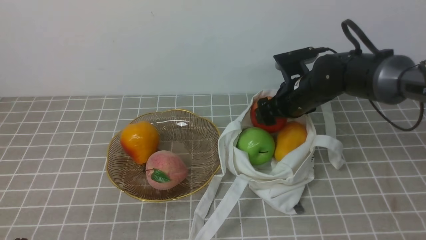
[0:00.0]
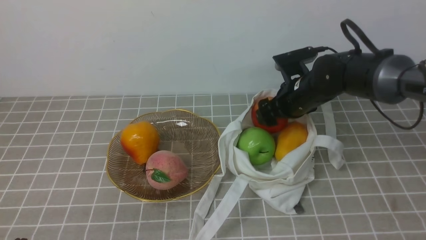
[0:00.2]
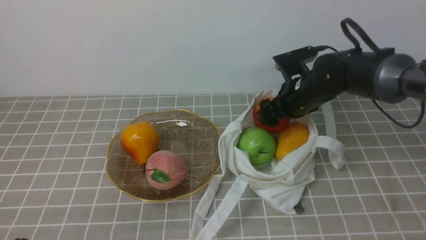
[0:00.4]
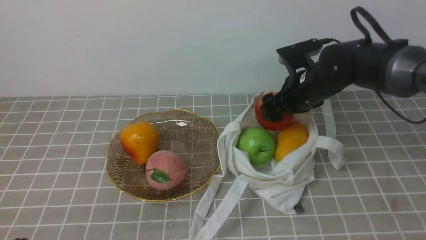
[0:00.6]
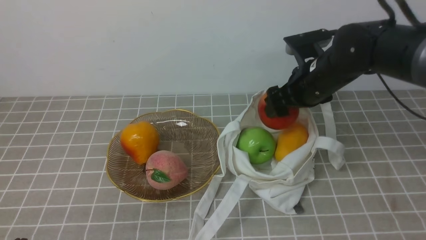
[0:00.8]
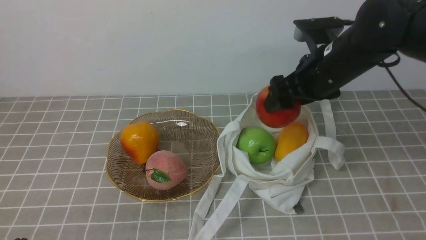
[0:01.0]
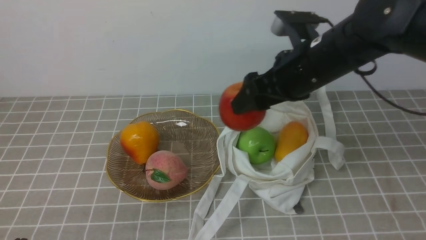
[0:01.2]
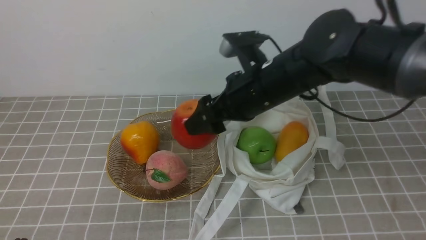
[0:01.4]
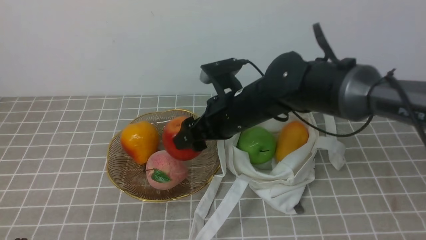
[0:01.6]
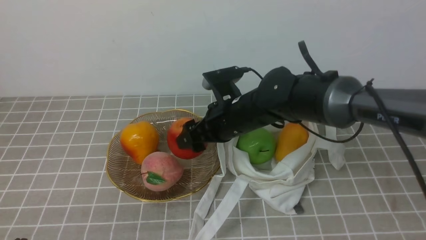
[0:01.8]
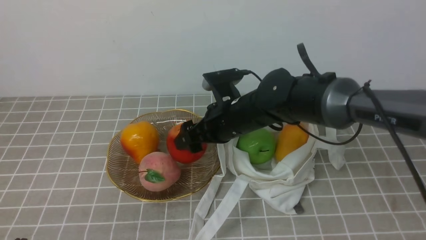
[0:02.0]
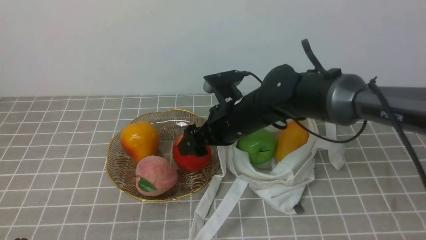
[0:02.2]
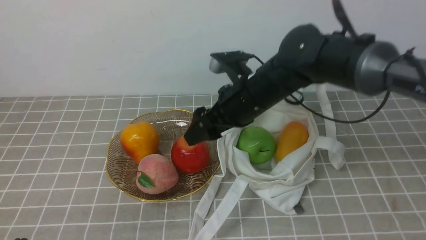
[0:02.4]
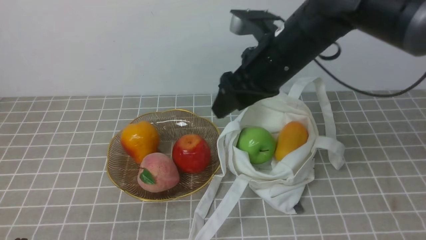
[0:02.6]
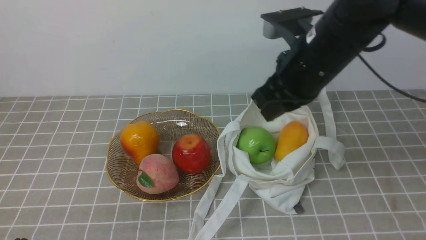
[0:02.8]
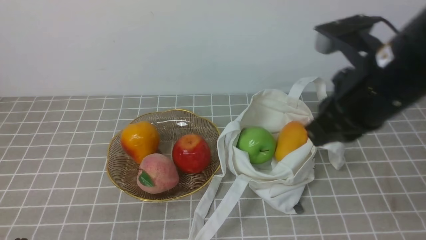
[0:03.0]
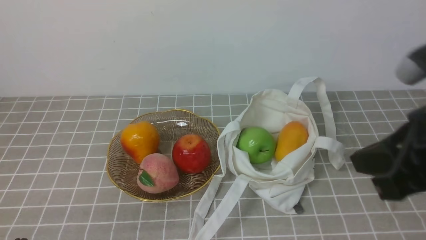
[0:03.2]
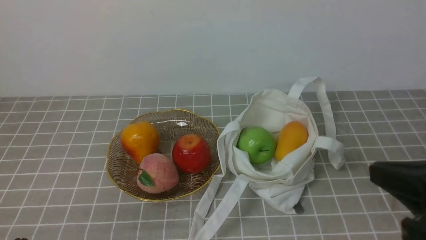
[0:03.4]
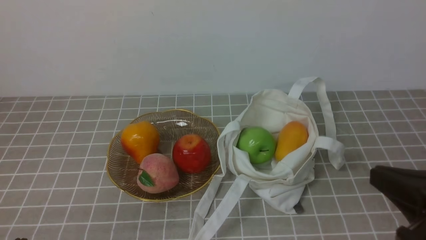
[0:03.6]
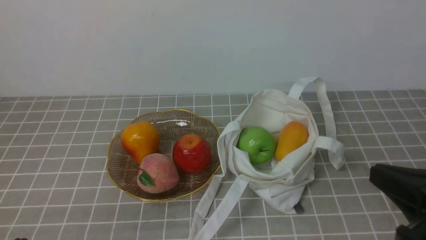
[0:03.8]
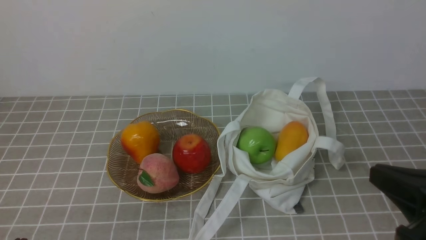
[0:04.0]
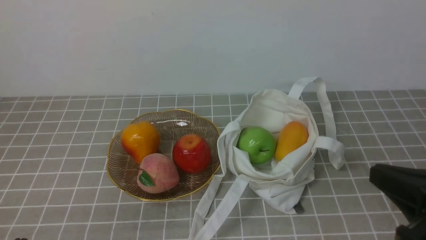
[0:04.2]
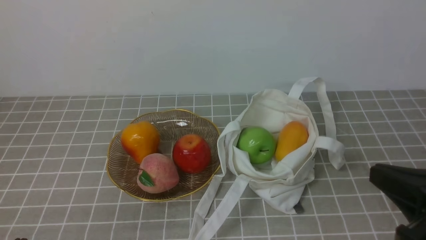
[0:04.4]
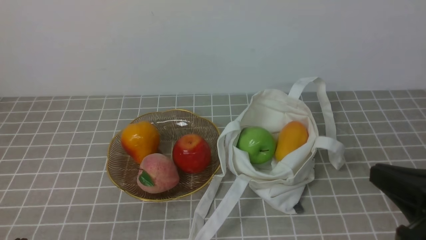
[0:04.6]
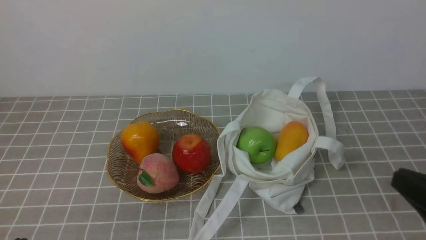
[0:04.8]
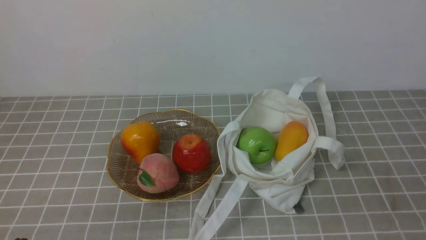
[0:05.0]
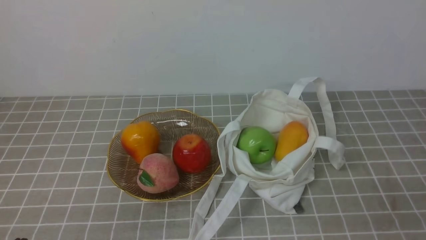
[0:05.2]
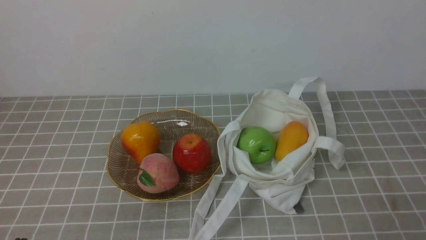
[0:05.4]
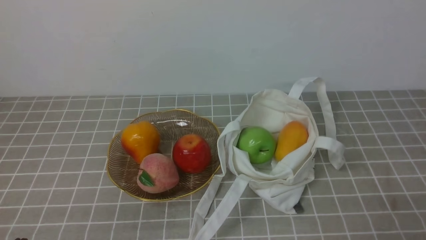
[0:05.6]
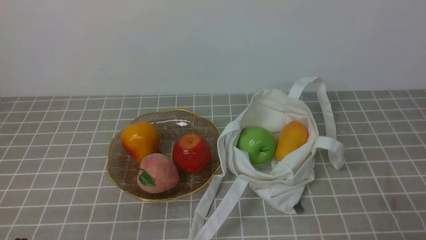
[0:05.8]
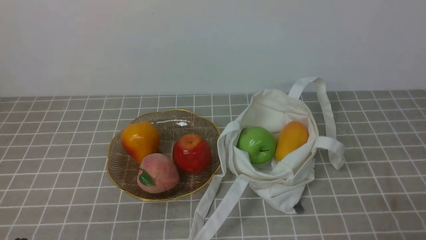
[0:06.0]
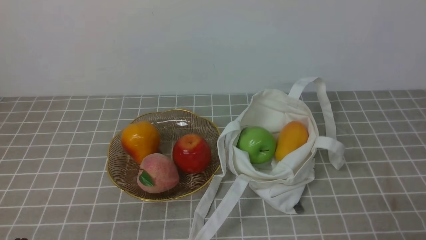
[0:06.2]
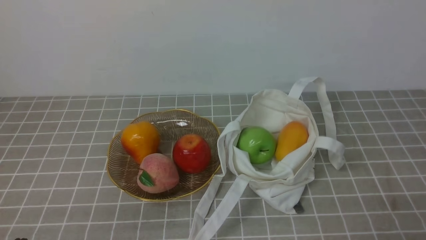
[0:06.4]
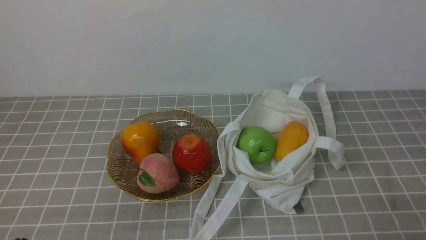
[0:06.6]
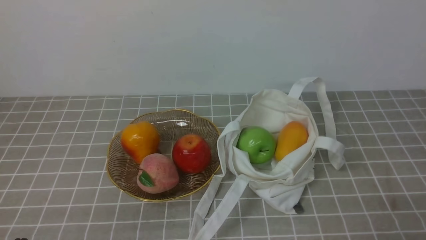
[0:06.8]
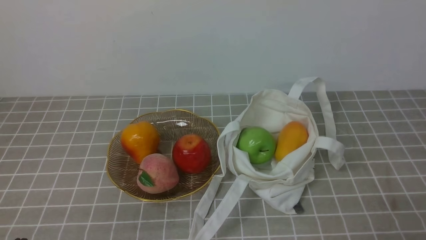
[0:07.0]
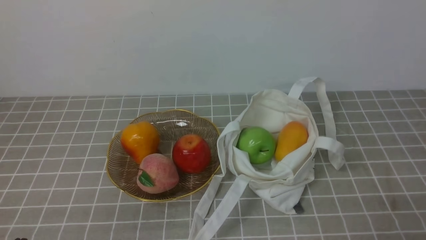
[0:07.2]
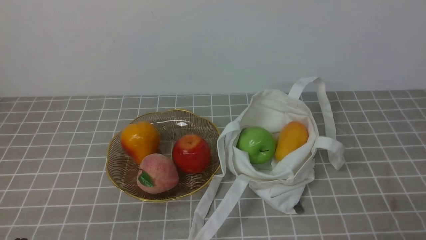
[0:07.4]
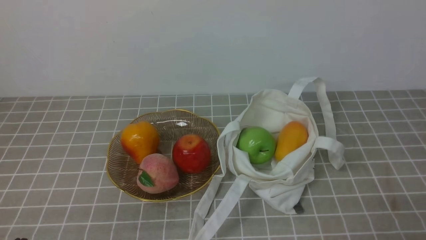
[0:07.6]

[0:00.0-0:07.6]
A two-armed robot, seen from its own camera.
Step, 0:00.0 to 0:02.2: use the right arm to put the apple into the empty plate on the left.
0:00.0 to 0:01.6: The right gripper moves to the left, backward and upward, roughly 15 cm.
0:01.6 to 0:03.0: The right gripper heads to the right, upward and backward, covering about 15 cm, and closes.
0:03.0 to 0:04.6: The right gripper is displaced backward, to the right and downward by about 20 cm.
0:04.6 to 0:06.0: The right gripper is displaced downward, to the right and backward by approximately 15 cm.
0:06.0 to 0:07.6: Both grippers stay about where they are.

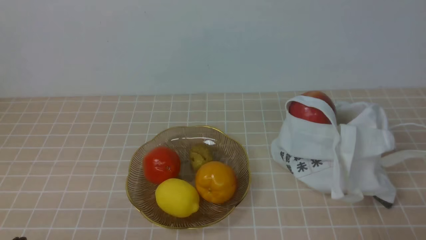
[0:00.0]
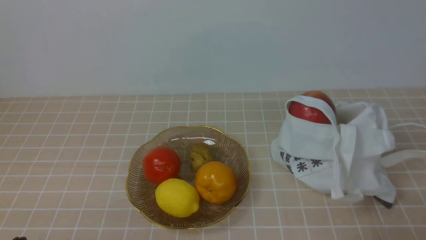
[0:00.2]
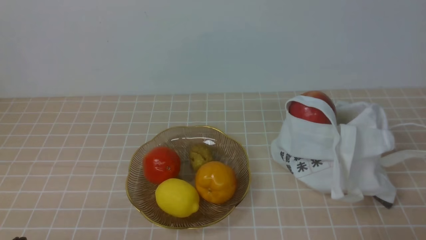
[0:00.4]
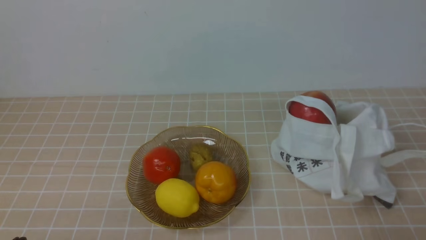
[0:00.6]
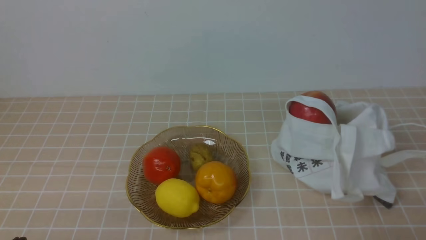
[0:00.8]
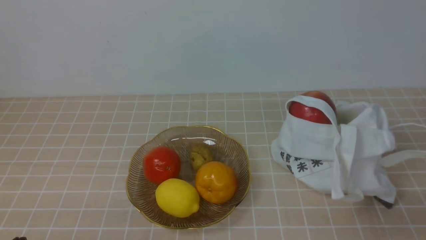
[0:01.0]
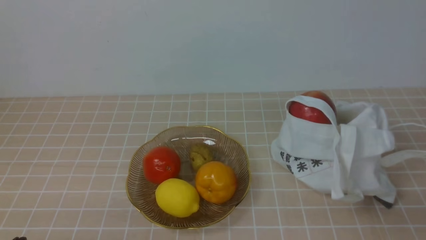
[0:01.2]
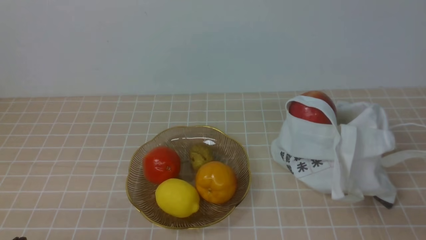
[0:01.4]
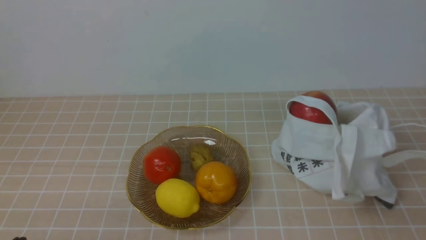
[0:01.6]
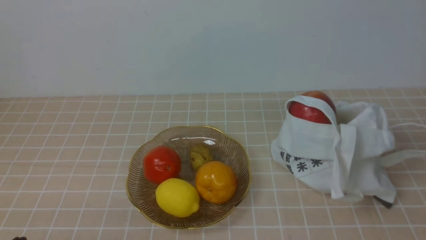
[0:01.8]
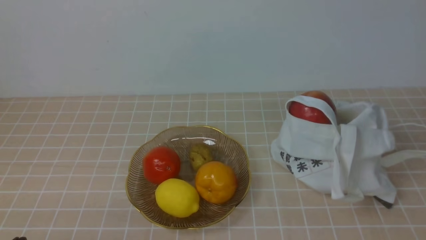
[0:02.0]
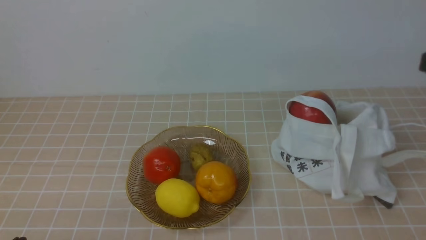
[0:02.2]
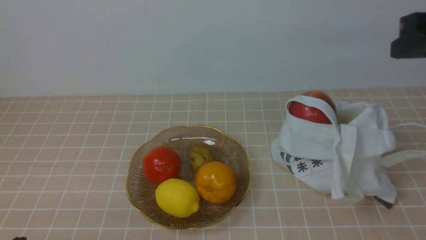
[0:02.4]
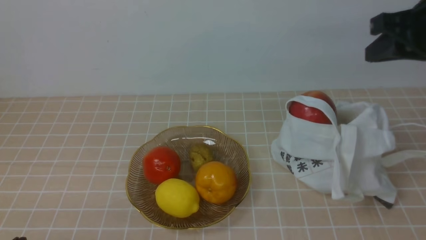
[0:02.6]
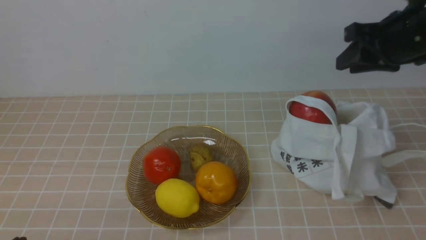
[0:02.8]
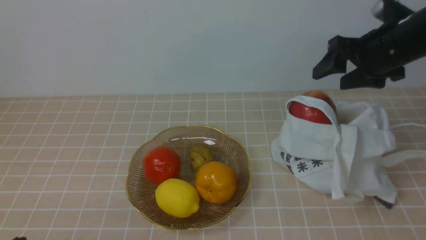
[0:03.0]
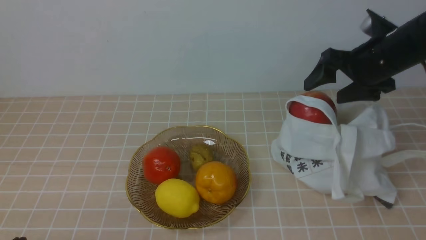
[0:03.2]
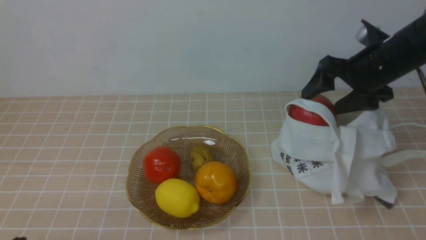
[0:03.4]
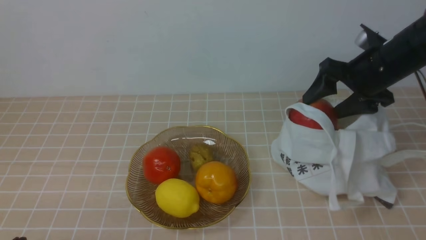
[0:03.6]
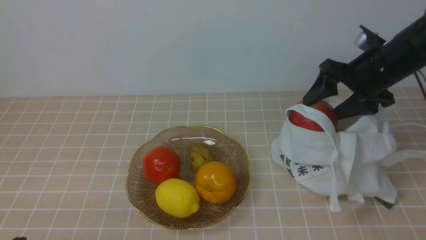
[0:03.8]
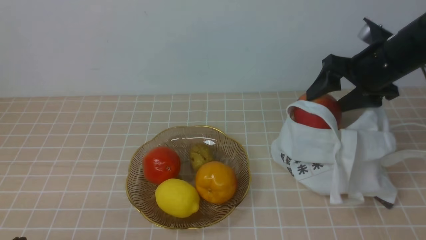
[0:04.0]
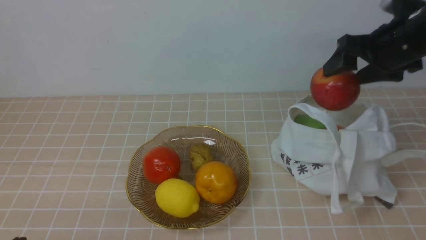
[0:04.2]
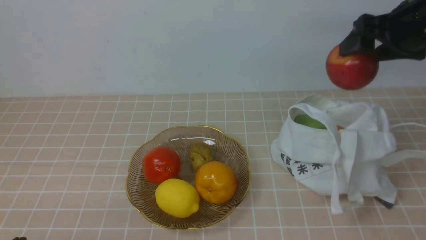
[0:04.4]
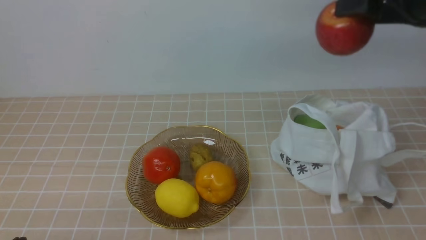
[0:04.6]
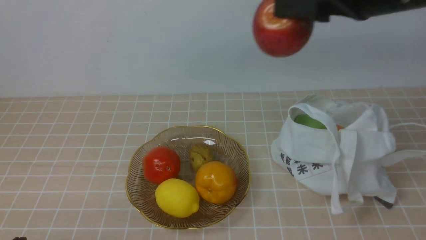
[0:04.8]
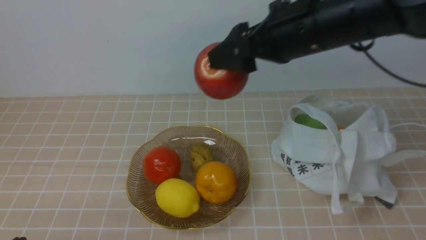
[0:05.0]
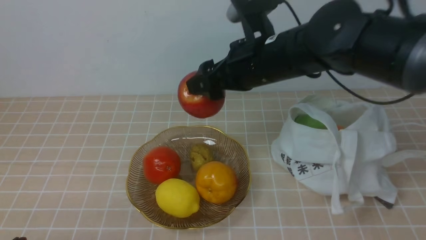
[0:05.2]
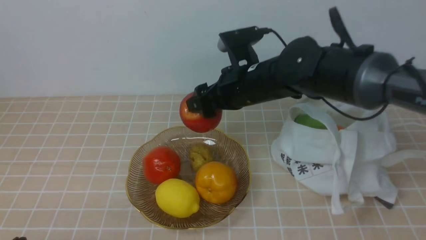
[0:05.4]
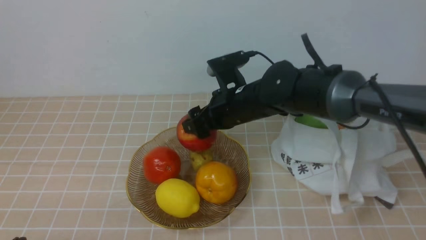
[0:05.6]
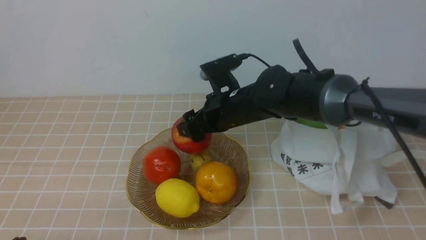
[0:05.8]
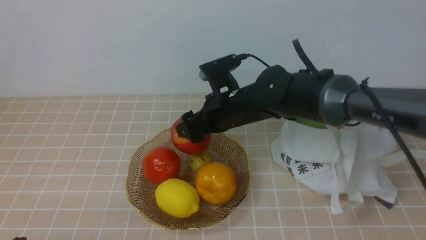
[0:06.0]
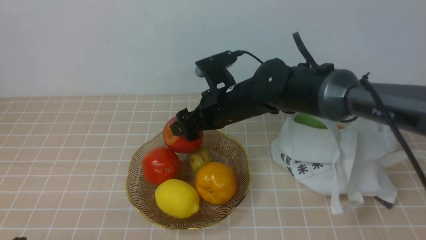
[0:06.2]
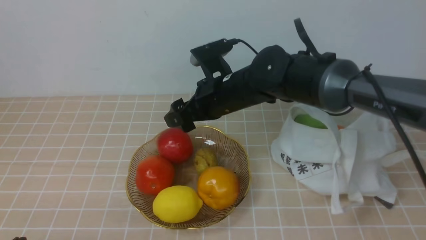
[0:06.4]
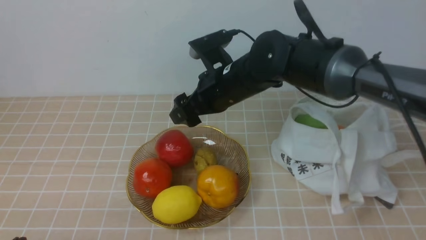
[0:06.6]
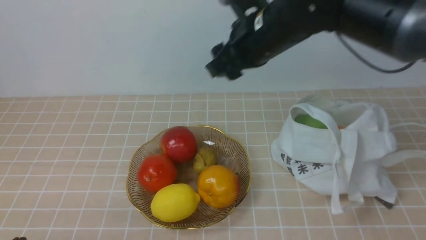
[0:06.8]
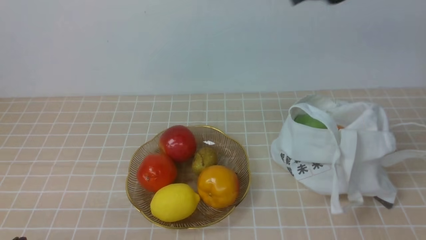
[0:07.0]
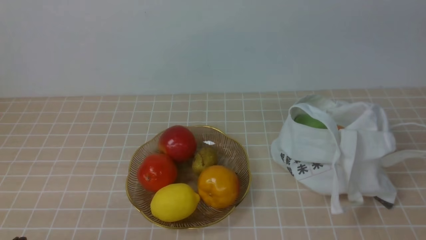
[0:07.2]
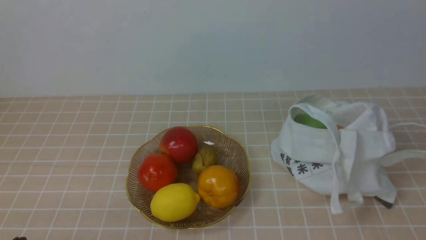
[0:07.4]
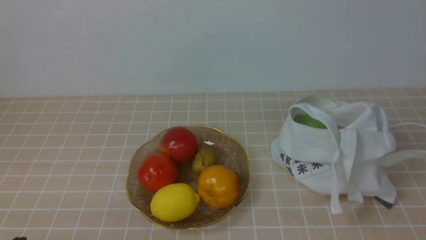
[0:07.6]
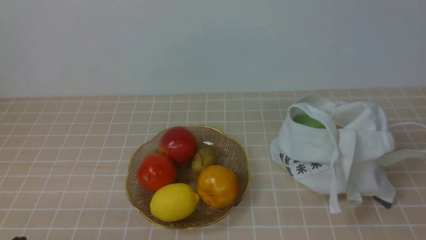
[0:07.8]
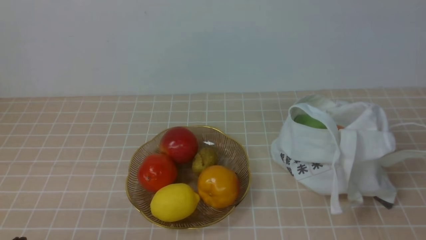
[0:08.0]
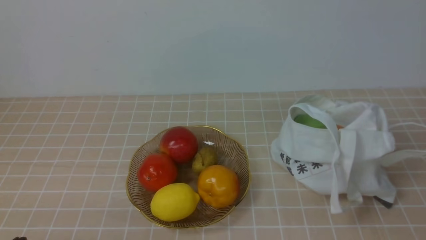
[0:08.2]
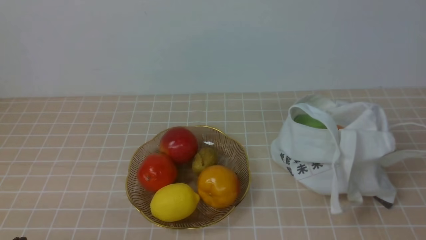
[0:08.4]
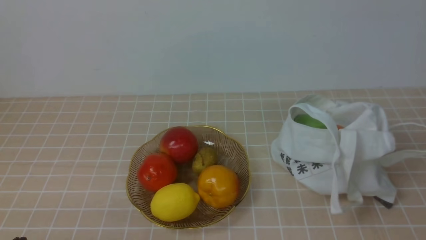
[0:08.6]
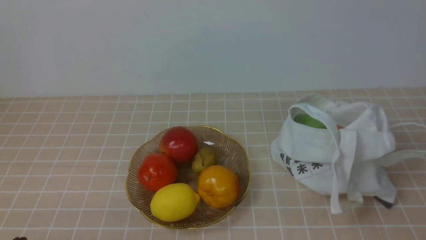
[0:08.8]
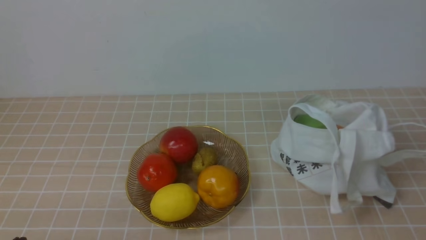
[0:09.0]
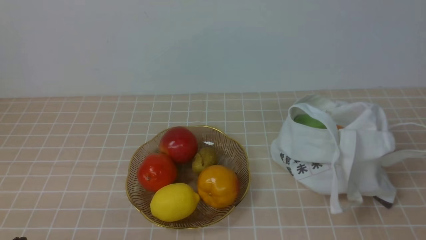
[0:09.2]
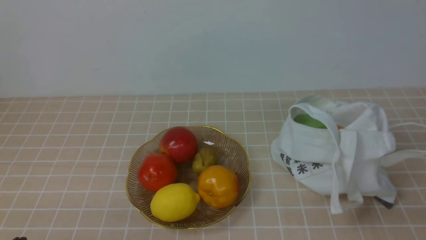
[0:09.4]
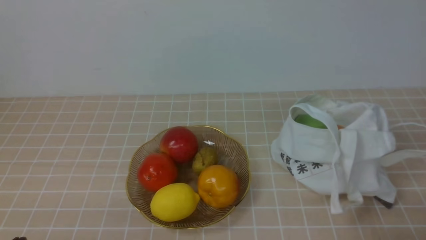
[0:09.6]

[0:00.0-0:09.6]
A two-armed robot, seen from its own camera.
Step, 0:00.0 to 0:03.8: use the right arm to grab an apple from the bag.
Step, 0:04.2 to 0:06.4: use the right arm to put the apple into the empty plate on the left.
0:01.6 to 0:03.2: The right gripper shifts about 35 cm forward, and opens.
0:03.2 to 0:04.8: The right gripper travels upward, to the left and backward by some 15 cm.
0:04.8 to 0:06.4: The right gripper shifts roughly 20 cm downward and to the left.
0:06.4 to 0:08.0: The right gripper shifts about 50 cm backward and to the right, and closes its fingers.
